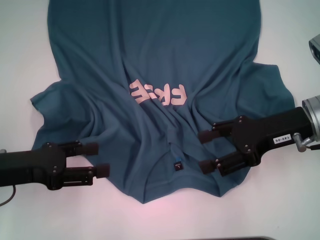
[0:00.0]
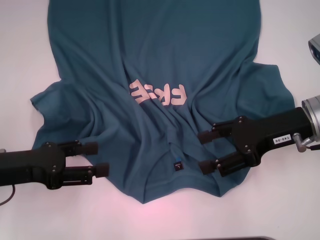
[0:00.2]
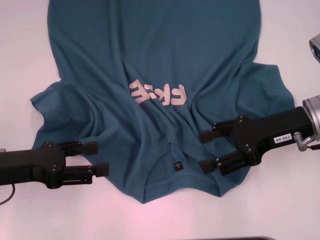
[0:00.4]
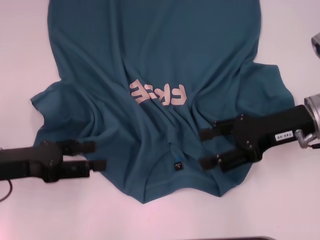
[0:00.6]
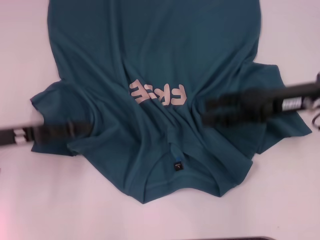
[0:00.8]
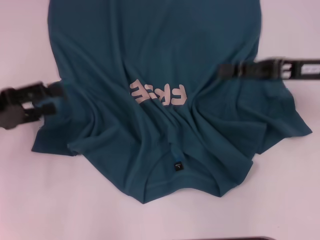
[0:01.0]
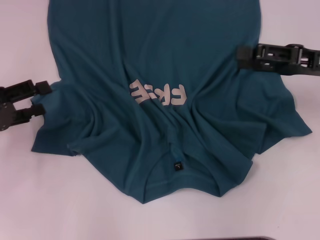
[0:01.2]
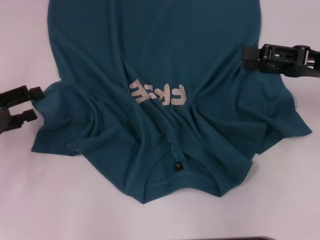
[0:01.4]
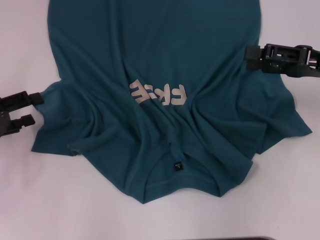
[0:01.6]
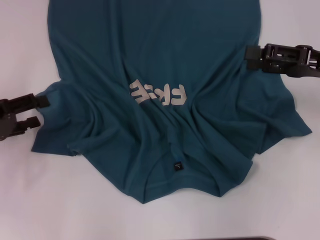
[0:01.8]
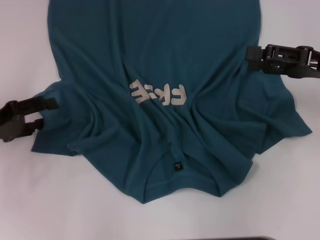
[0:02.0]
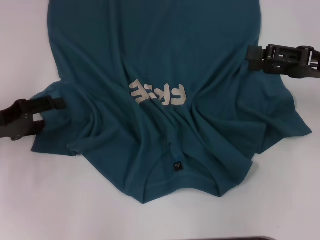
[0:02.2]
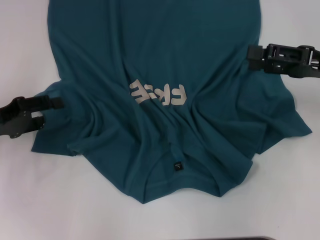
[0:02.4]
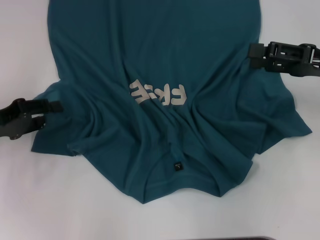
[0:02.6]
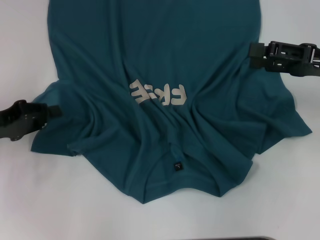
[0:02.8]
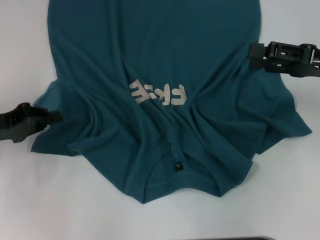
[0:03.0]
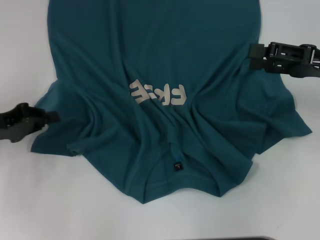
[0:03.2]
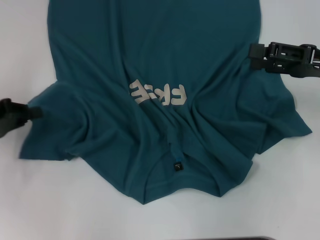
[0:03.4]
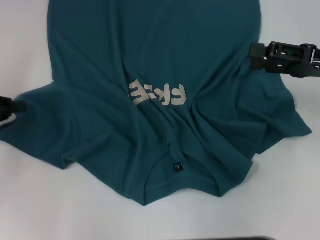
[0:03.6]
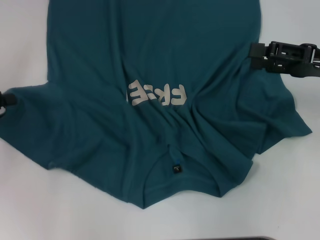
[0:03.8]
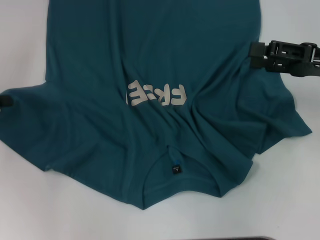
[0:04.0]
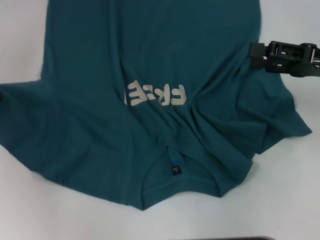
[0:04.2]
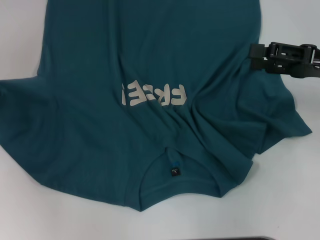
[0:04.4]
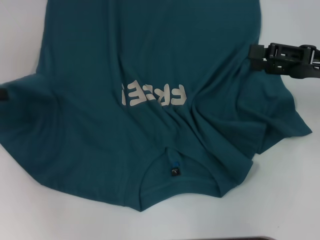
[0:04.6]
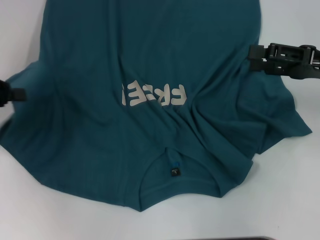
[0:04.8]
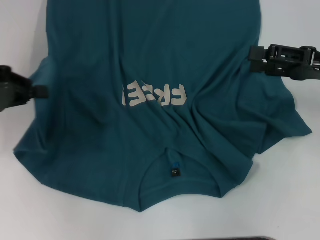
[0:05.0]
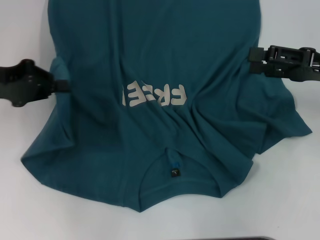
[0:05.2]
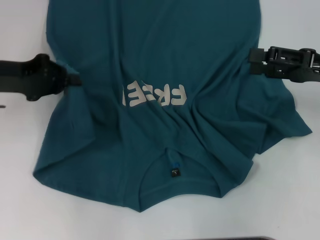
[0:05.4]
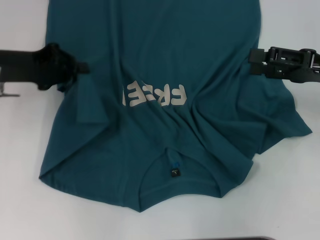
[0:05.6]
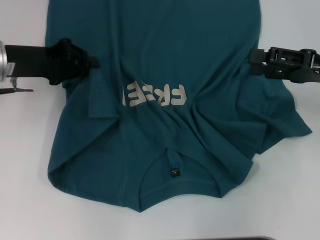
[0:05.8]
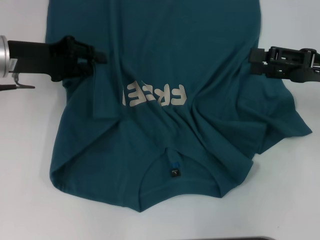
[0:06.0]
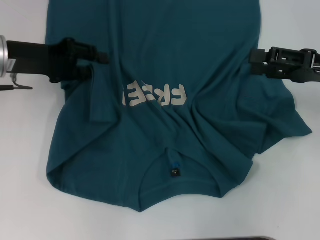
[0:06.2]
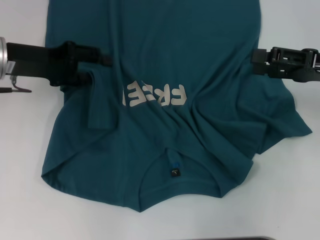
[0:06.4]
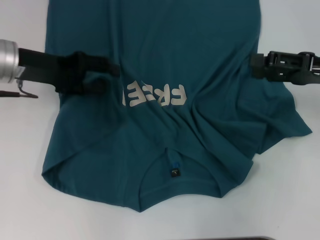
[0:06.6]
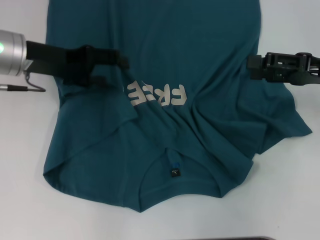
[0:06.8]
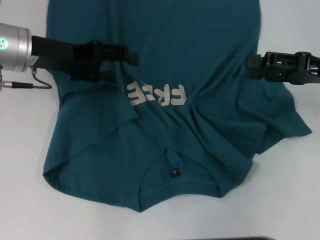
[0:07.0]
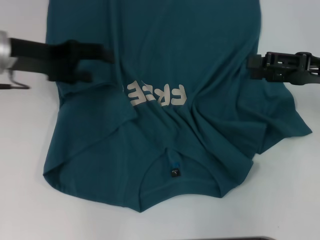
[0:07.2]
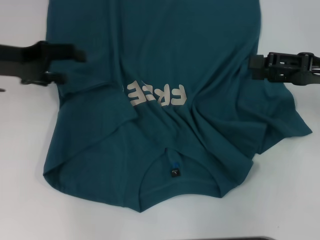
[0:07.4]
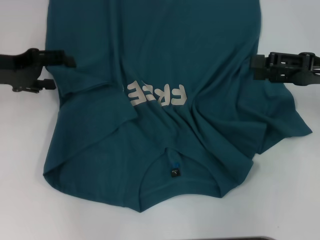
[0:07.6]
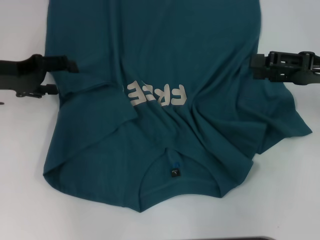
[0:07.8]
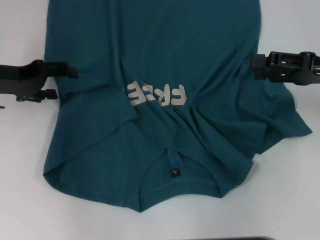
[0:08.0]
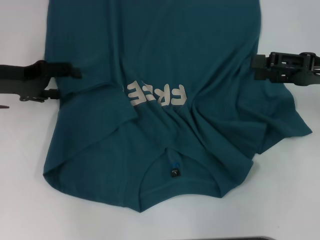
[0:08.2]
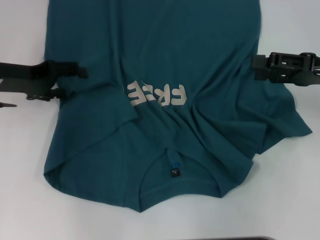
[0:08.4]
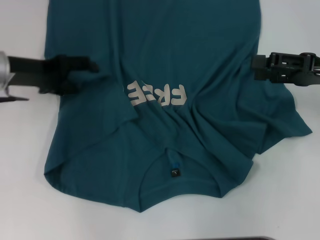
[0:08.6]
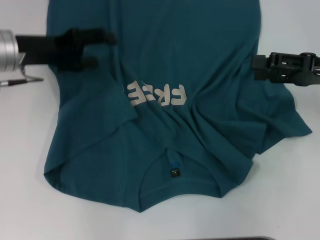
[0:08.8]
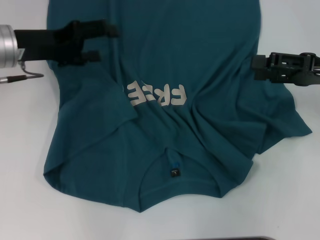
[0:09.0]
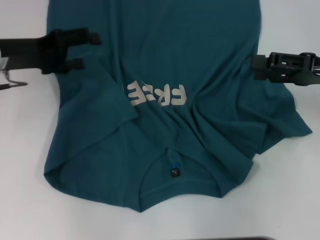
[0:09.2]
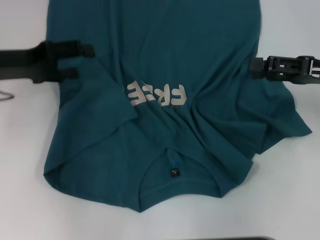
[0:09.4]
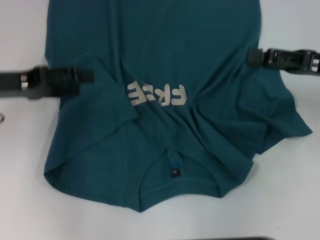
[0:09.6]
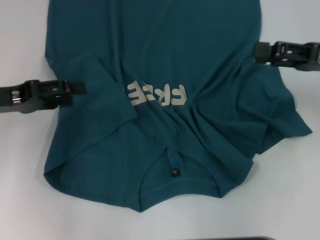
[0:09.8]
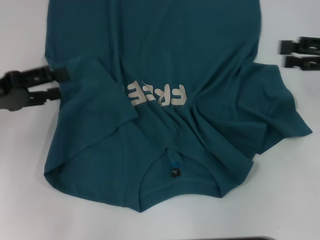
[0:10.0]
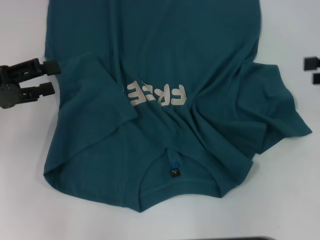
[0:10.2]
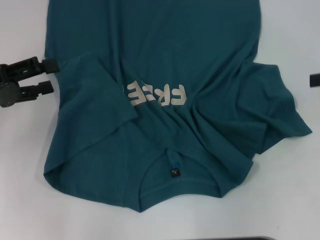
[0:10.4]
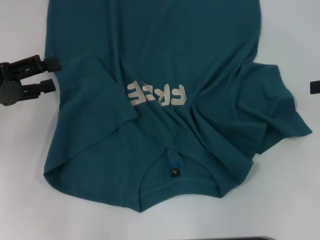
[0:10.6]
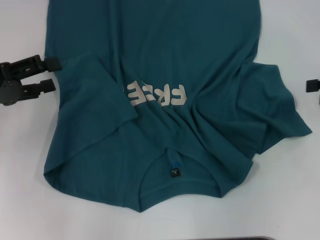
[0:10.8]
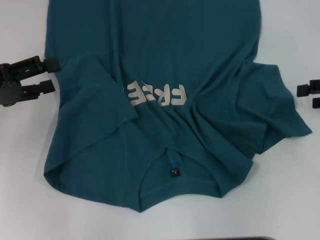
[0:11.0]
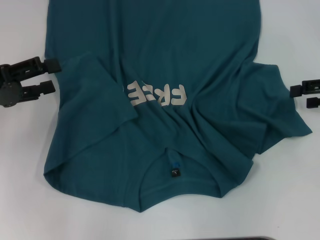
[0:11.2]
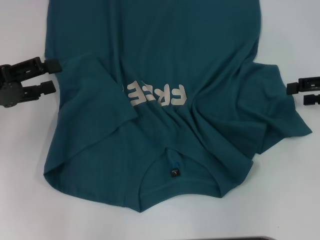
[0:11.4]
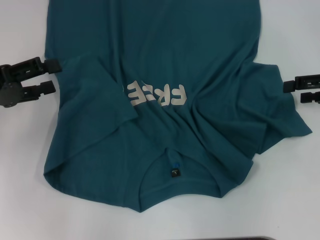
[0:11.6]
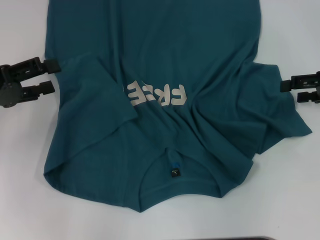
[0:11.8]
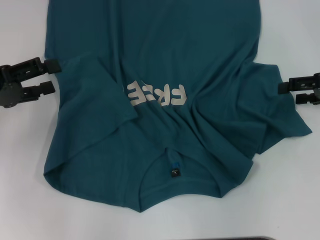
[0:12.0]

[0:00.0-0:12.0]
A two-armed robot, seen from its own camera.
Step, 0:00.0 to 0:09.0: Fold the bottom left sleeve with your left hand.
0:00.0 to 0:01.6: The left gripper heads to the left, covering approximately 5 cm. The right gripper moves to the right, about 5 cm.
0:01.6 to 0:03.0: The left gripper closes its fingers.
0:03.0 to 0:04.4: The left gripper shifts some 10 cm upward and to the left.
0:04.4 to 0:06.0: The left gripper shifts approximately 15 cm to the right and forward.
0:06.0 to 0:07.6: The left gripper opens.
0:07.6 to 0:09.0: The left gripper moves to the right, about 5 cm.
0:09.0 to 0:10.4: The right gripper shifts some 10 cm to the right, while the left gripper shifts about 10 cm backward and to the left.
0:10.4 to 0:12.0: The right gripper shifts by approximately 5 cm.

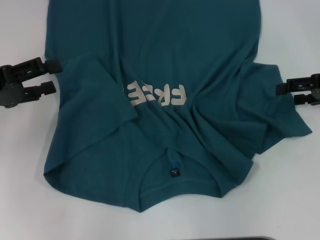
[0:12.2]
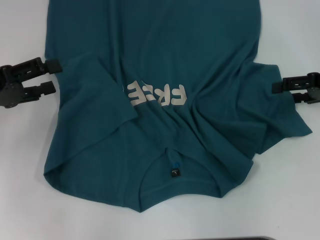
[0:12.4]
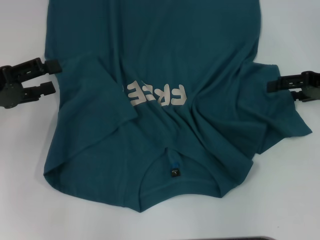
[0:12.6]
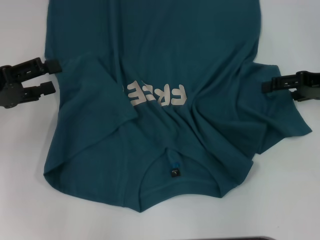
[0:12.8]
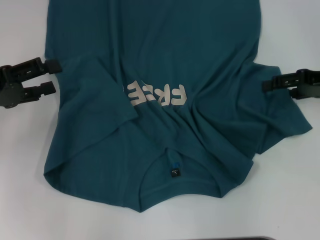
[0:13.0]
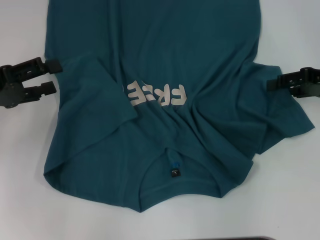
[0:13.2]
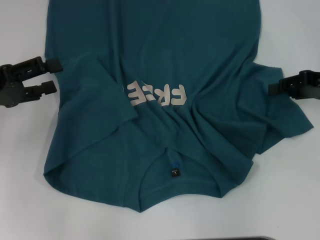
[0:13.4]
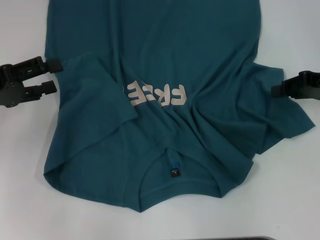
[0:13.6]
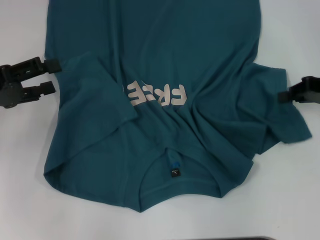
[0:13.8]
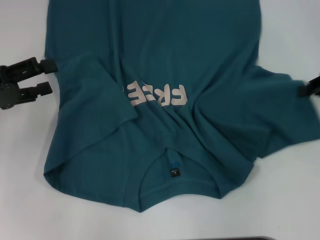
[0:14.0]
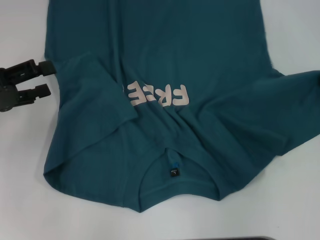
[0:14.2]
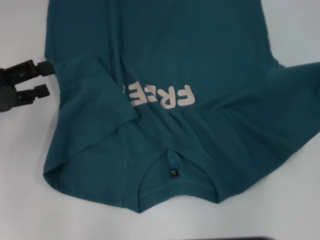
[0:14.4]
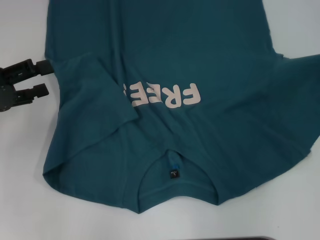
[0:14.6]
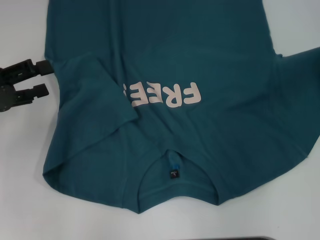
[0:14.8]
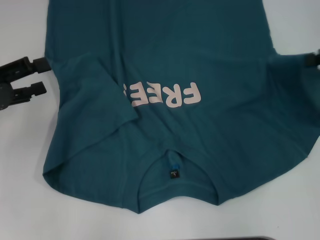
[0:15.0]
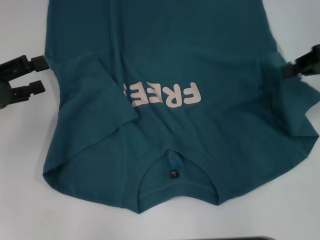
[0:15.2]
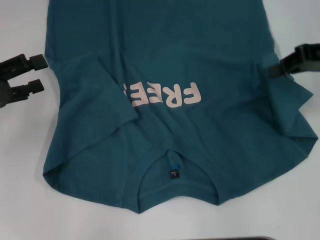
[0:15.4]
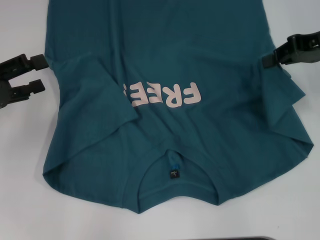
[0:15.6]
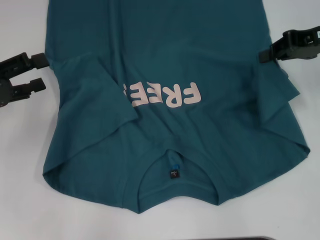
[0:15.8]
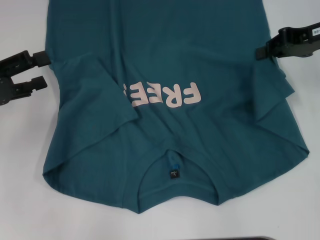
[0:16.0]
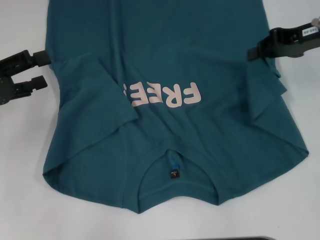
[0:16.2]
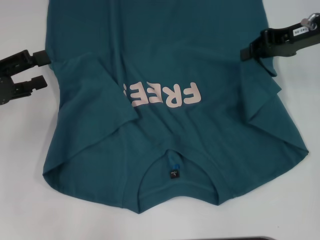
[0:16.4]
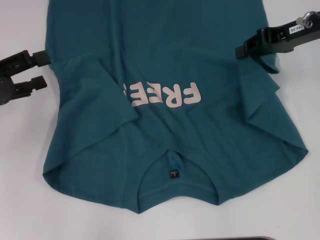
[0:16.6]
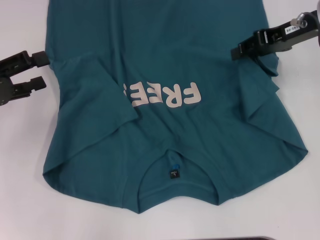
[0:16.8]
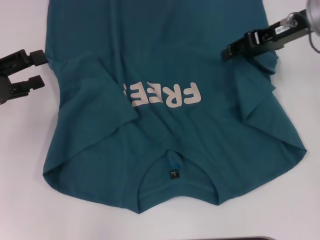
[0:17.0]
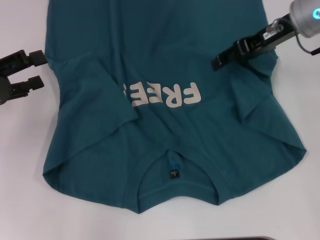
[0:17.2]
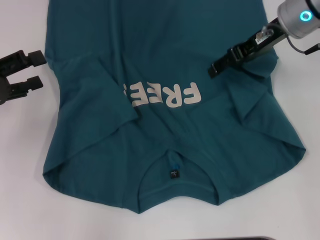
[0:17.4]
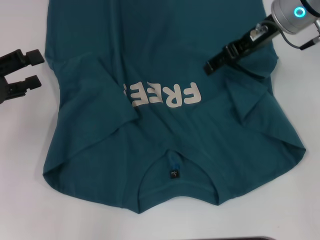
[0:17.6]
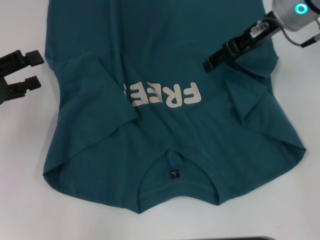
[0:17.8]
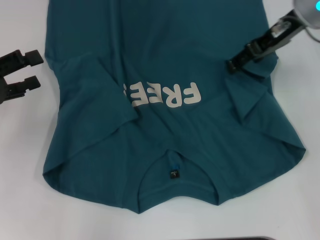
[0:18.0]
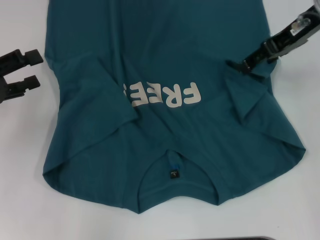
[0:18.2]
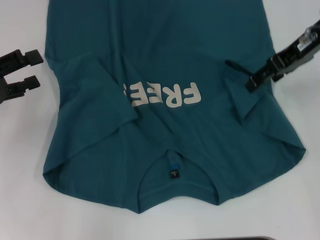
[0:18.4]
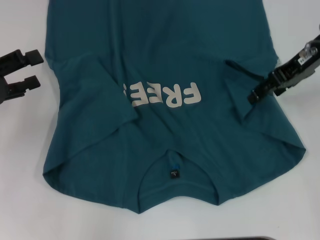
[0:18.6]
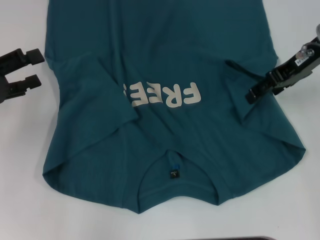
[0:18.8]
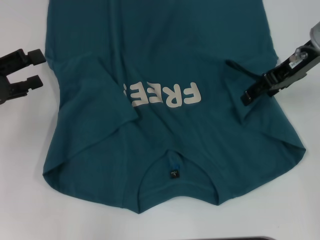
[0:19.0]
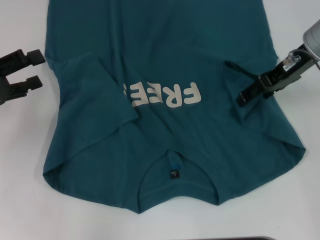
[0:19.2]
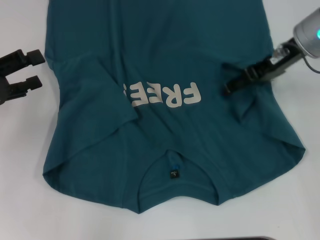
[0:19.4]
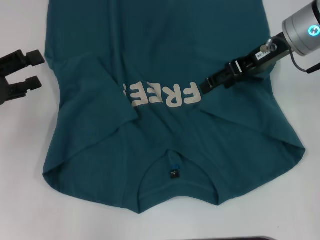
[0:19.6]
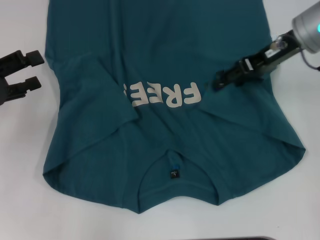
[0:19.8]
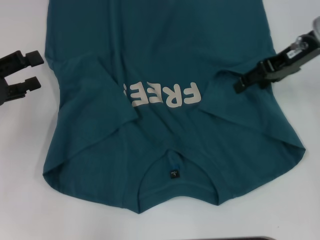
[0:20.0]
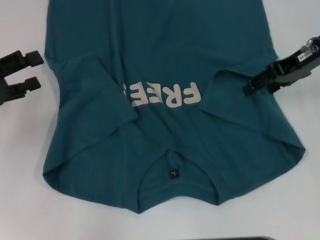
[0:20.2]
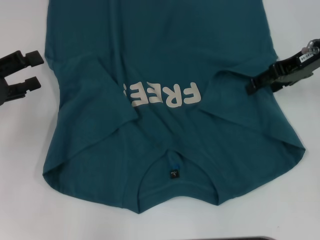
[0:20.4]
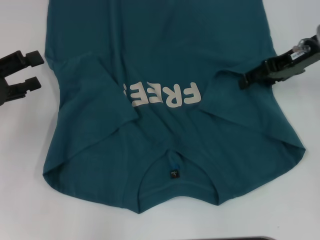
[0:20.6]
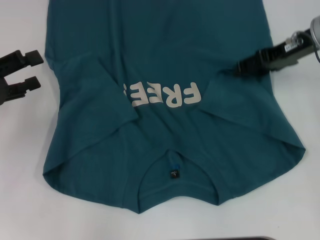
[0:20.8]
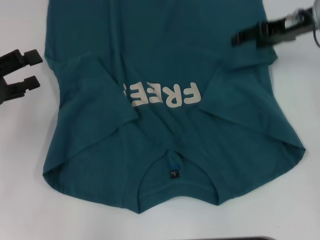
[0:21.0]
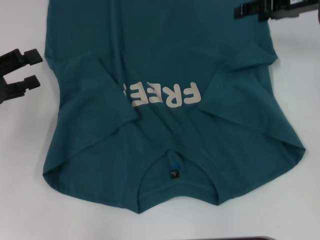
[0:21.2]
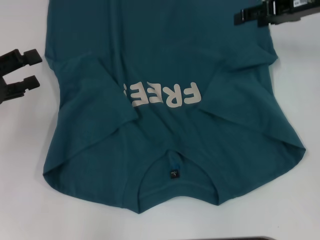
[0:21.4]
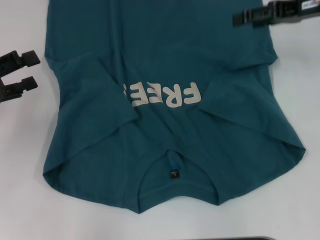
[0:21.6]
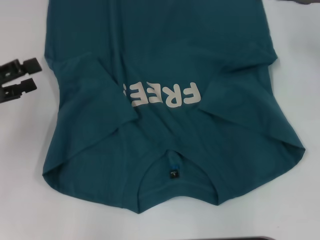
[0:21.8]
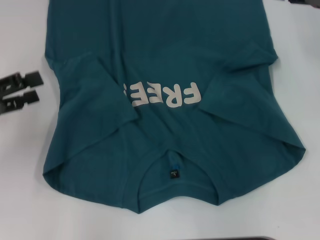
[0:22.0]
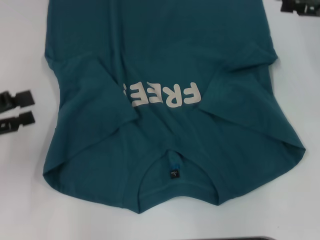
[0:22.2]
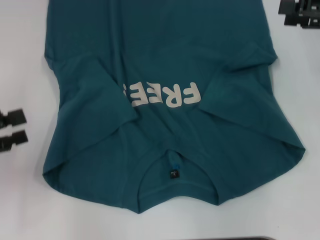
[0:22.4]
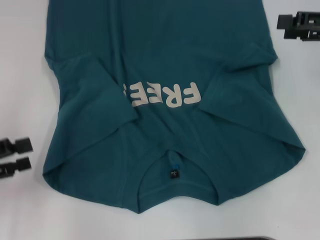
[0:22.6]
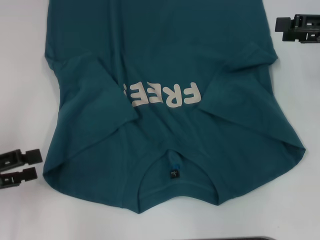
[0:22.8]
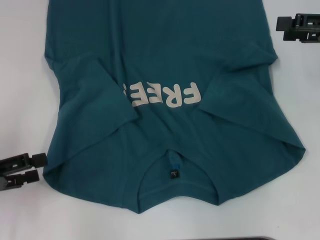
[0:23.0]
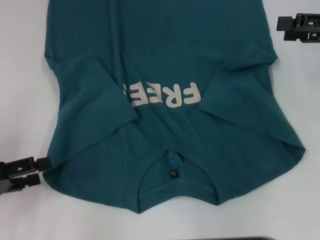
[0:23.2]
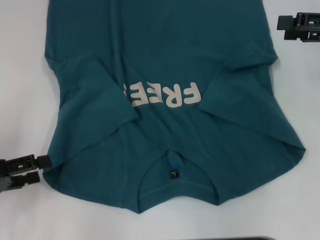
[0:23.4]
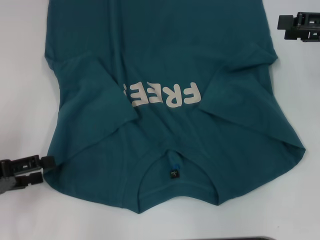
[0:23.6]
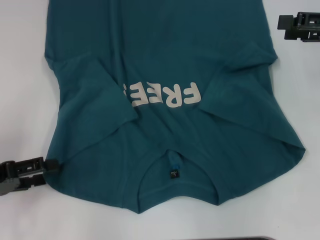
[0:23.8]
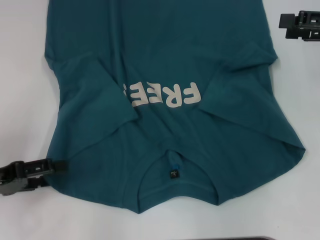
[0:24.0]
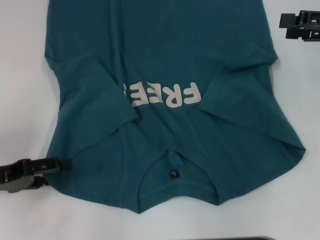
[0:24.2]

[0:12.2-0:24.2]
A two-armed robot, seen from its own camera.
Step, 0:12.2 to 0:21.0: Fold the bottom right sleeve to the right.
0:12.2 to 0:13.8: The right gripper closes.
0:13.8 to 0:15.2: The right gripper heads upward, covering approximately 5 cm, and reaches roughly 5 cm to the right, then returns.
0:15.2 to 0:16.6: The right gripper shifts approximately 5 cm to the left.
0:16.6 to 0:18.2: The right gripper moves approximately 5 cm, and opens.
0:18.2 to 0:19.8: There are only small adjustments of the grippers.
0:19.8 to 0:21.2: The right gripper shifts by roughly 5 cm.
0:21.2 to 0:22.6: The left gripper travels backward by roughly 10 cm. Meanwhile the right gripper is displaced backward and to the right by about 10 cm.
0:22.6 to 0:24.2: The left gripper changes place by approximately 5 cm.
